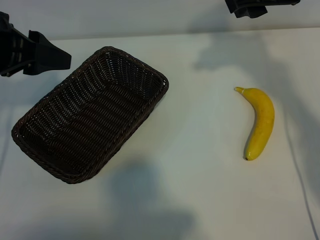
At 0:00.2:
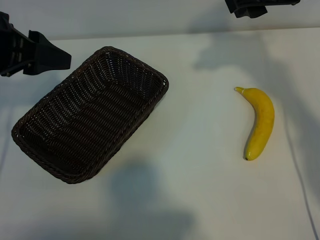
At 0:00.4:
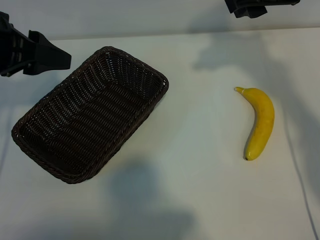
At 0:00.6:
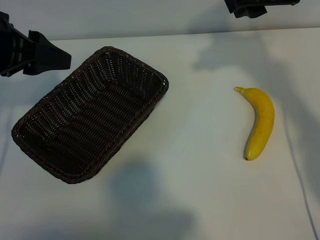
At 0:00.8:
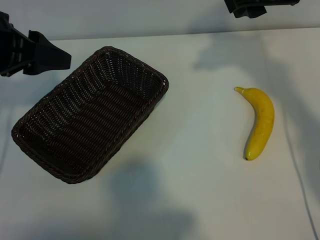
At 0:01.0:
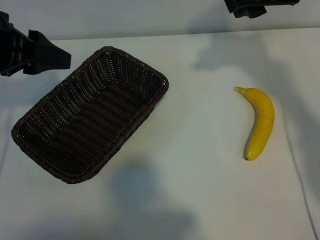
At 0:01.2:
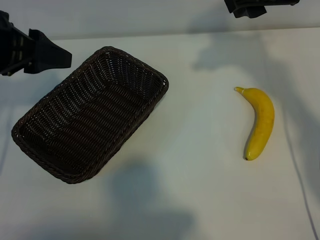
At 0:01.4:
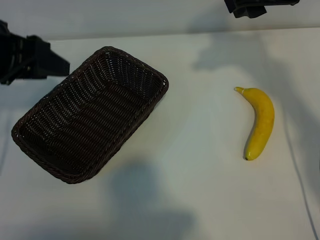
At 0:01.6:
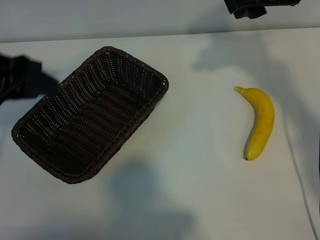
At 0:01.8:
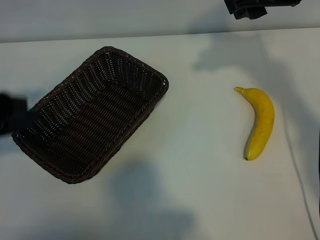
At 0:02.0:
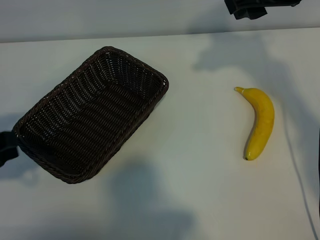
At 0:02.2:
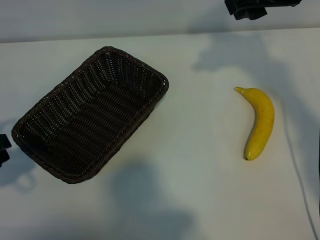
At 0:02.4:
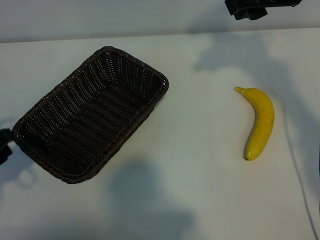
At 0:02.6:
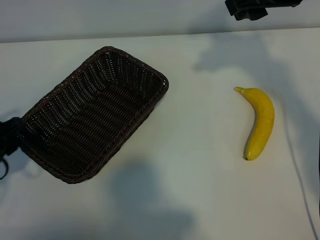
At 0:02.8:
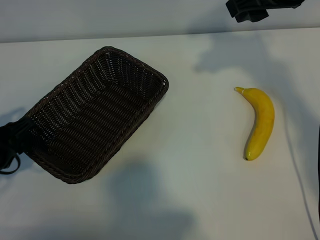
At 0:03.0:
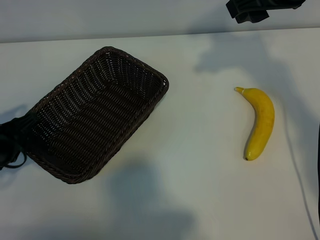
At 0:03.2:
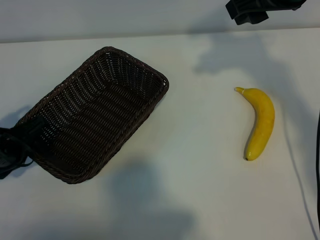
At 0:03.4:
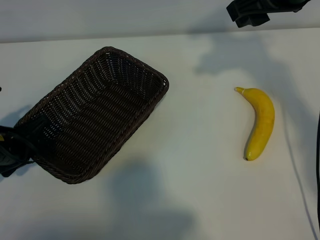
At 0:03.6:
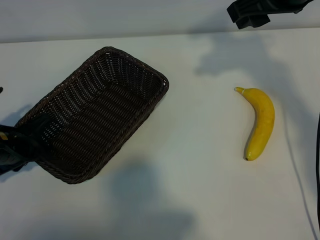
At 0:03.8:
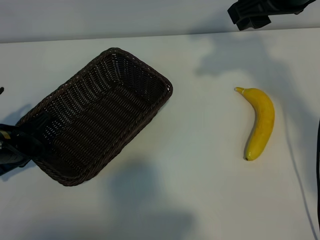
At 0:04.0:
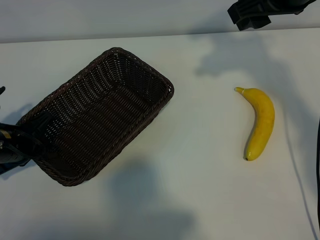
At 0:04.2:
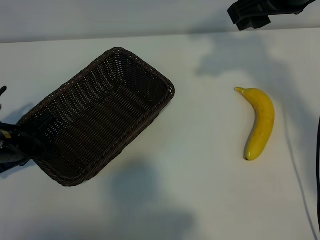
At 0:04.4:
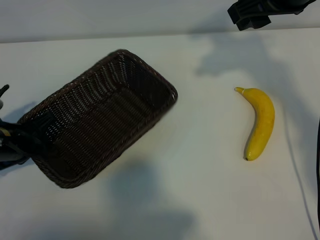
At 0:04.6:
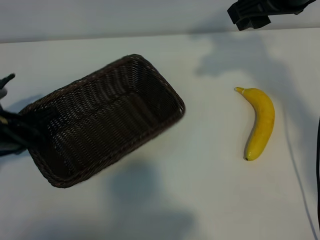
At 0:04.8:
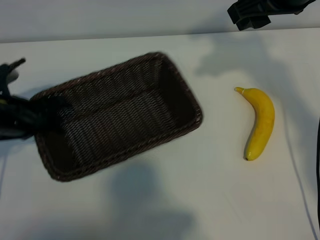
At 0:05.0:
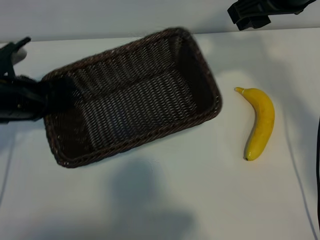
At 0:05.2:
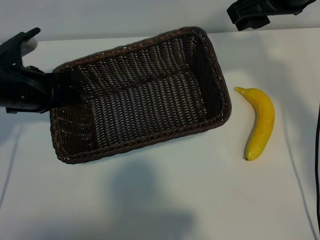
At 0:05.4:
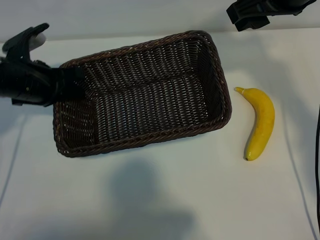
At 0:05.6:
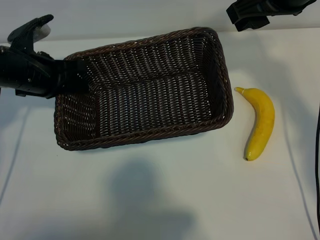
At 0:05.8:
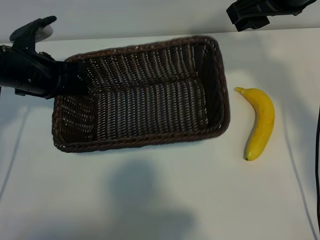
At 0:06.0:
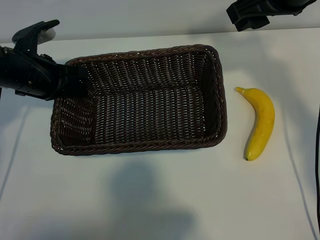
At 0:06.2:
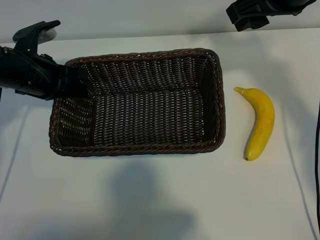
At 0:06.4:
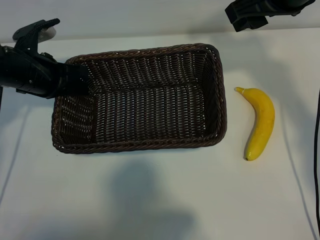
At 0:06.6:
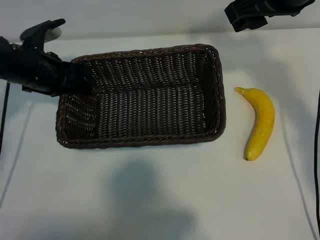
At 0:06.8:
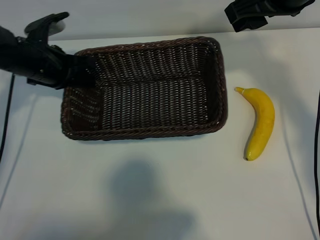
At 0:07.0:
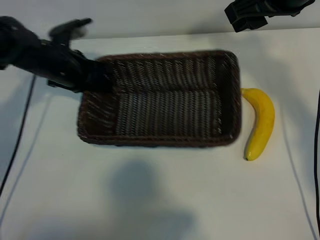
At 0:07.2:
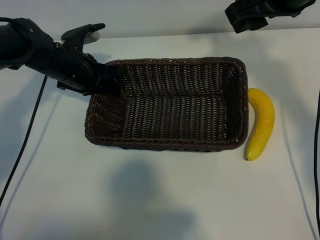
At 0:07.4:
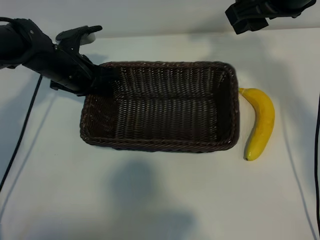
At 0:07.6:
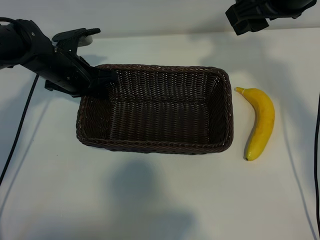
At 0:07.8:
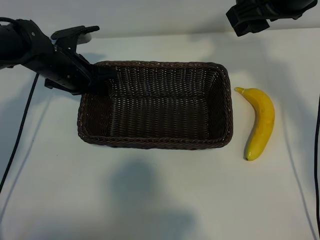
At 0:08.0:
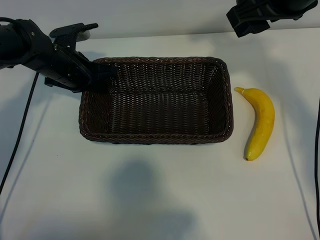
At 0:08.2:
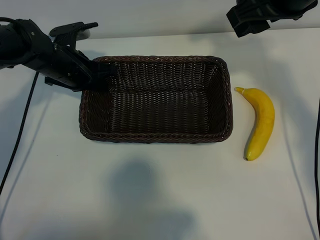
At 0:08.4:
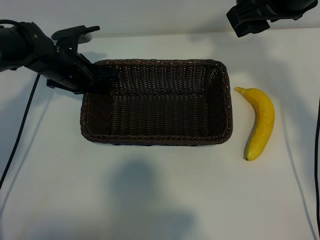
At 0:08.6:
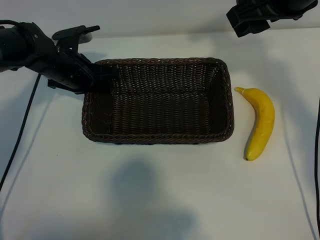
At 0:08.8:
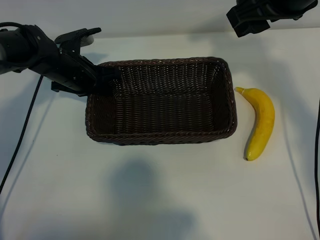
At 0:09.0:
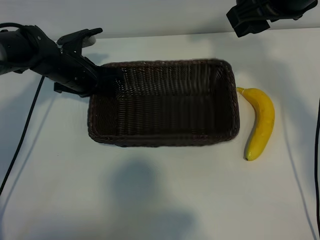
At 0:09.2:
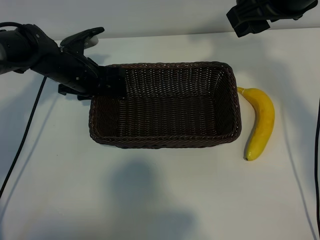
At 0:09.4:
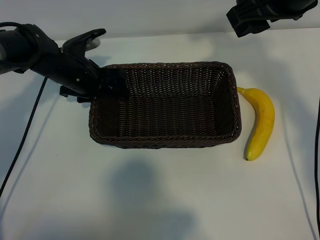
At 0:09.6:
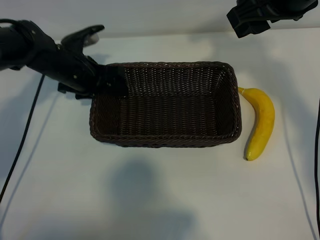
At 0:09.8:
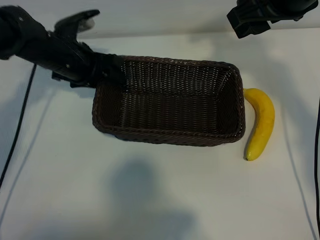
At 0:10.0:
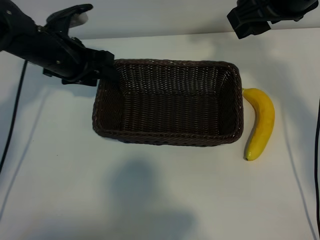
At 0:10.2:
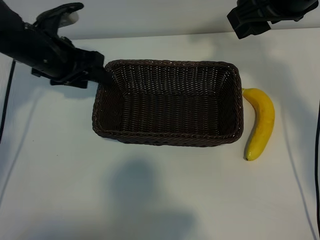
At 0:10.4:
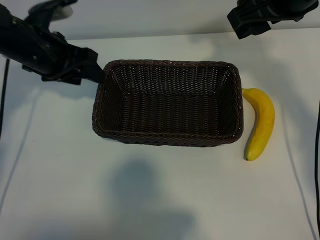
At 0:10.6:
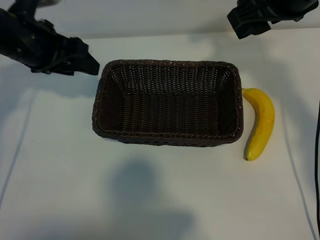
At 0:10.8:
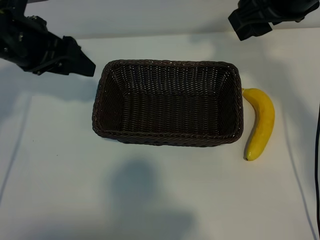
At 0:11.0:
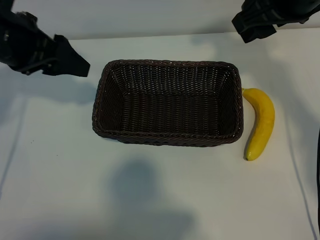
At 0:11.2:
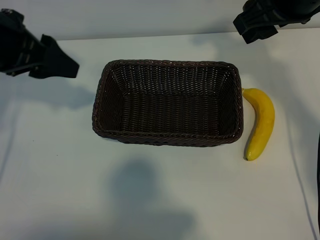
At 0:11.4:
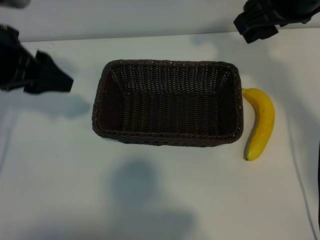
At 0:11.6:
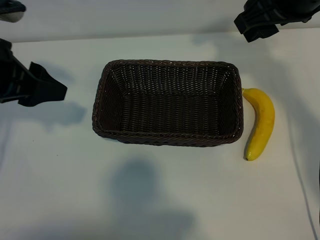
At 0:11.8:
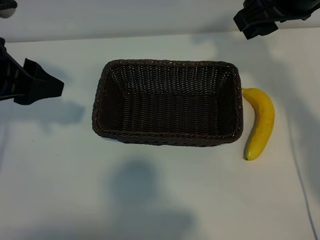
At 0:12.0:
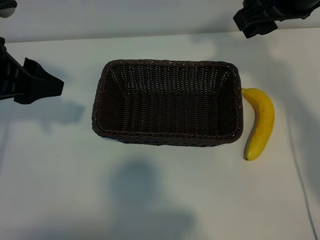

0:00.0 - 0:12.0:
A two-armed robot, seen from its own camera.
Task of the whole recording: pick up the banana and put it into the basket.
Step, 0:00.6 - 0:03.8: Grasp the basket with the left gripper.
Step, 0:04.0 - 0:09.8: Place the basket in the center of the table with the left gripper.

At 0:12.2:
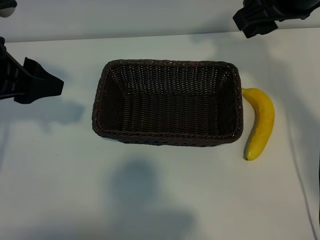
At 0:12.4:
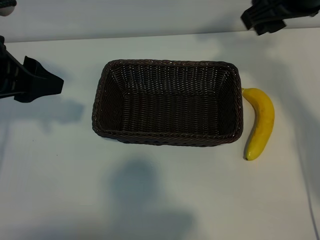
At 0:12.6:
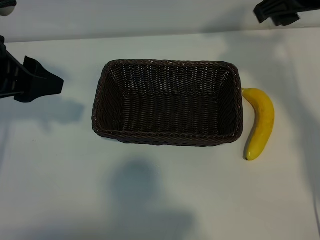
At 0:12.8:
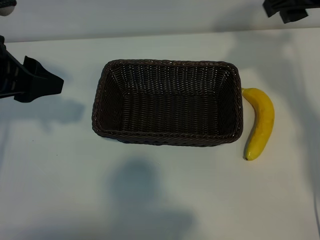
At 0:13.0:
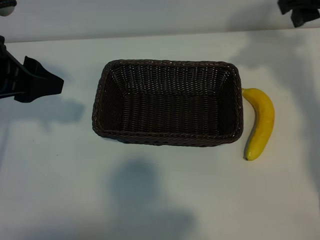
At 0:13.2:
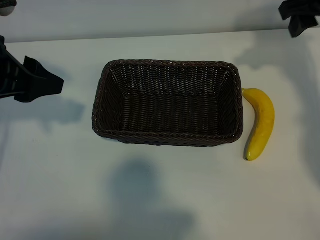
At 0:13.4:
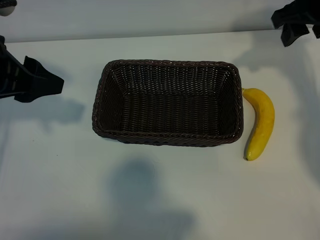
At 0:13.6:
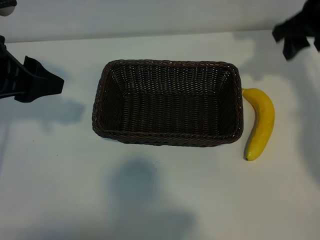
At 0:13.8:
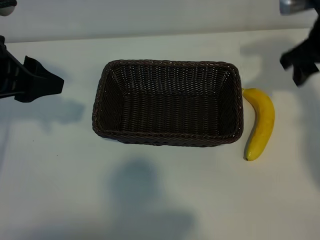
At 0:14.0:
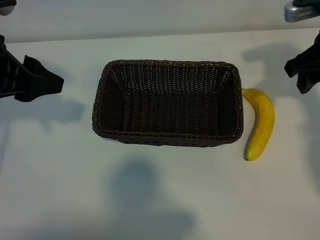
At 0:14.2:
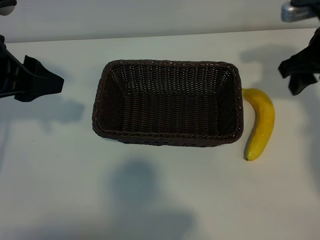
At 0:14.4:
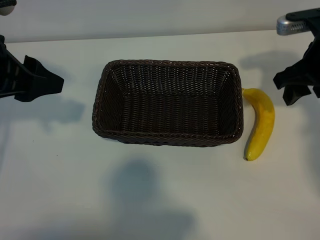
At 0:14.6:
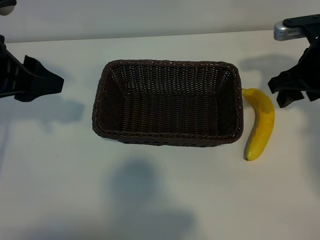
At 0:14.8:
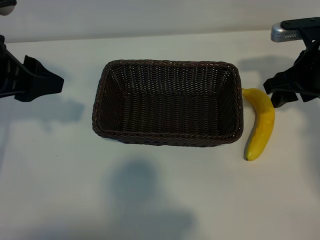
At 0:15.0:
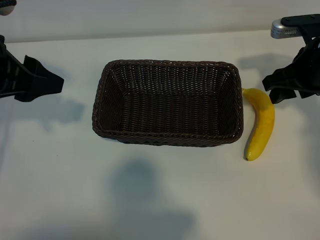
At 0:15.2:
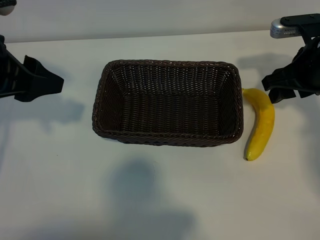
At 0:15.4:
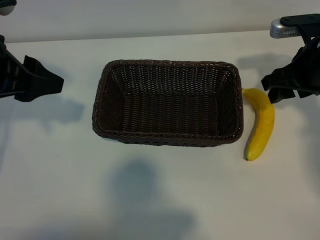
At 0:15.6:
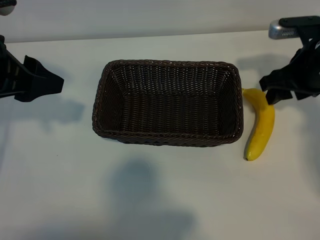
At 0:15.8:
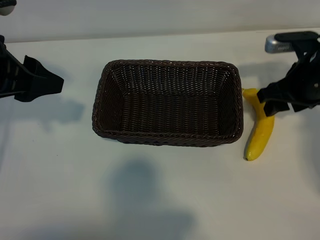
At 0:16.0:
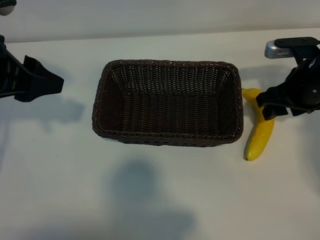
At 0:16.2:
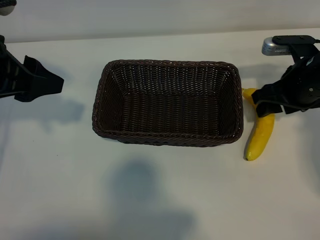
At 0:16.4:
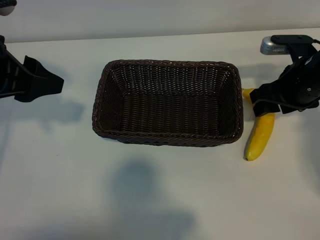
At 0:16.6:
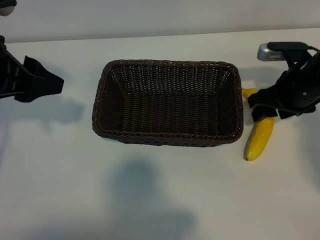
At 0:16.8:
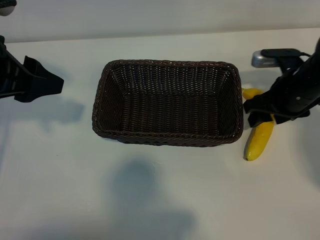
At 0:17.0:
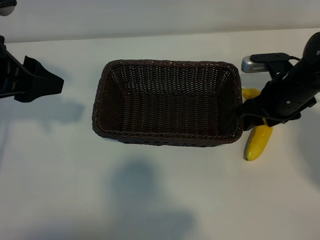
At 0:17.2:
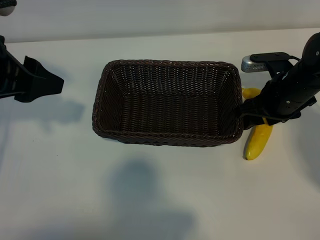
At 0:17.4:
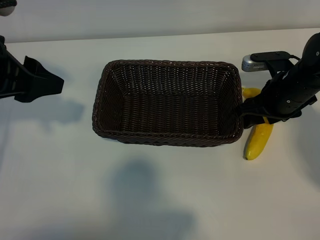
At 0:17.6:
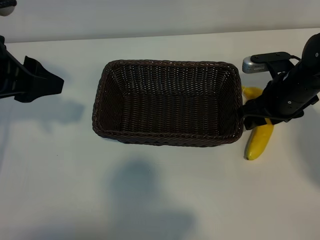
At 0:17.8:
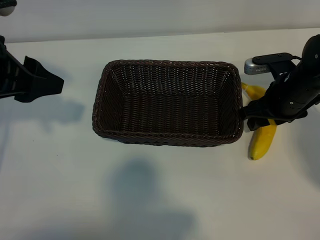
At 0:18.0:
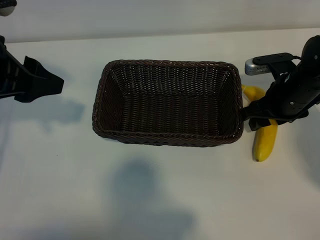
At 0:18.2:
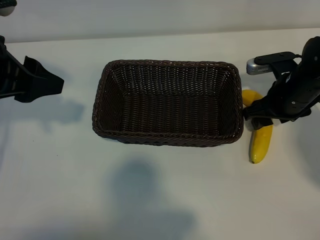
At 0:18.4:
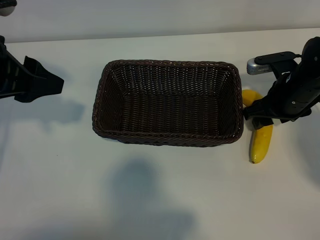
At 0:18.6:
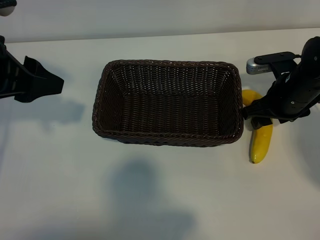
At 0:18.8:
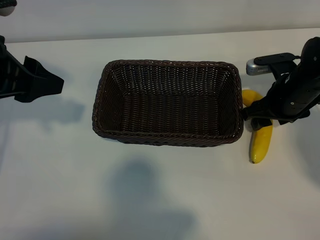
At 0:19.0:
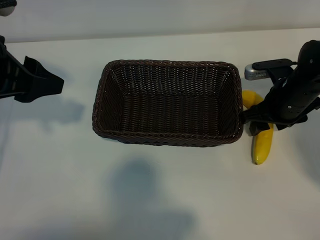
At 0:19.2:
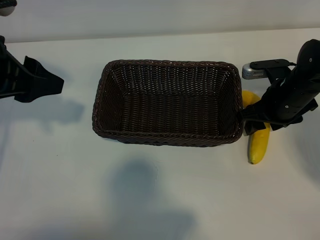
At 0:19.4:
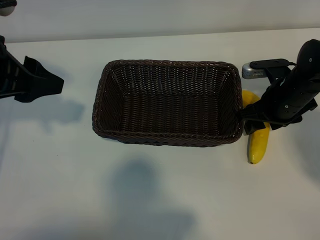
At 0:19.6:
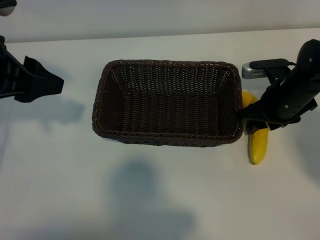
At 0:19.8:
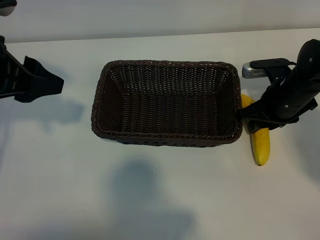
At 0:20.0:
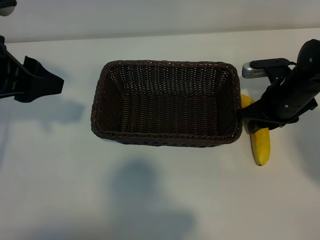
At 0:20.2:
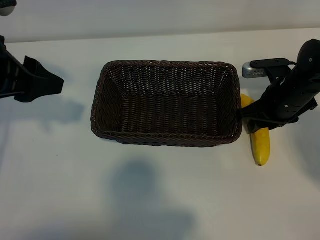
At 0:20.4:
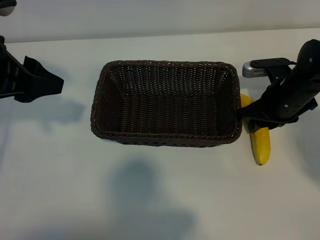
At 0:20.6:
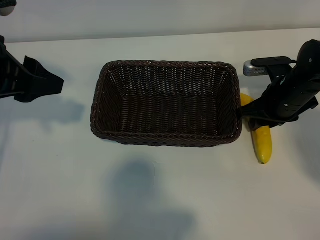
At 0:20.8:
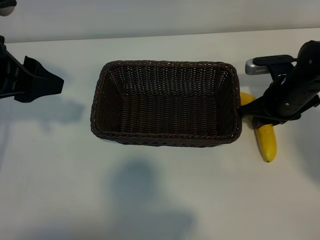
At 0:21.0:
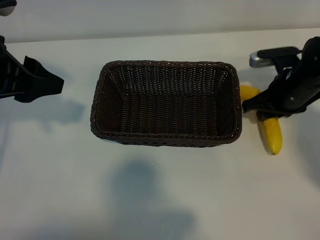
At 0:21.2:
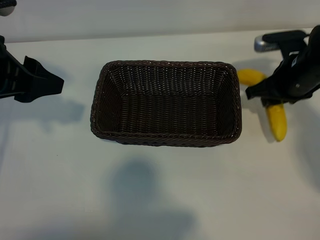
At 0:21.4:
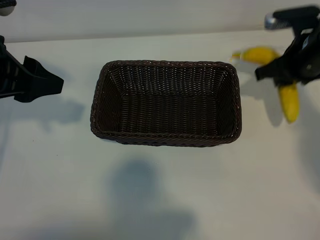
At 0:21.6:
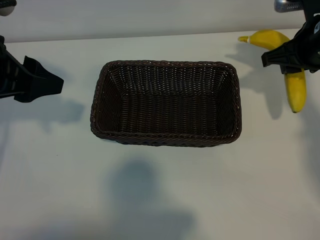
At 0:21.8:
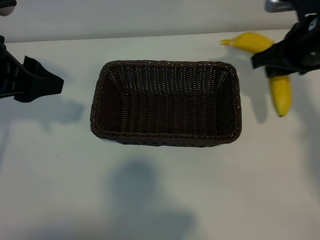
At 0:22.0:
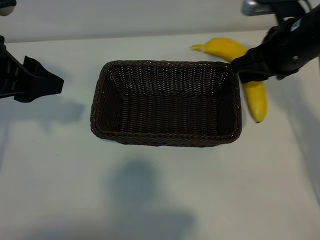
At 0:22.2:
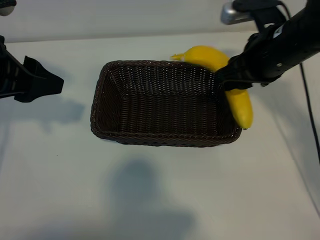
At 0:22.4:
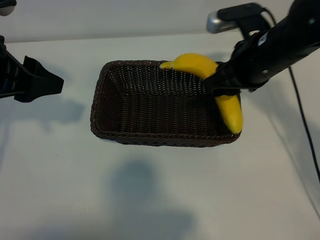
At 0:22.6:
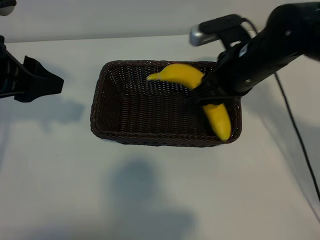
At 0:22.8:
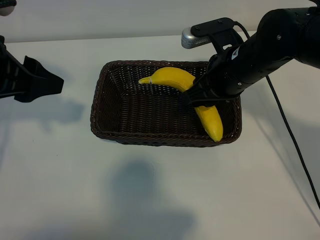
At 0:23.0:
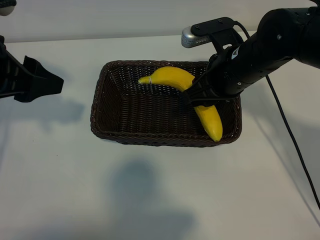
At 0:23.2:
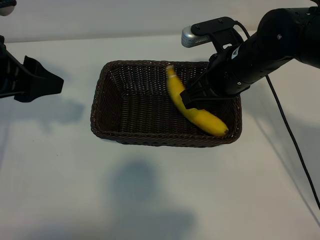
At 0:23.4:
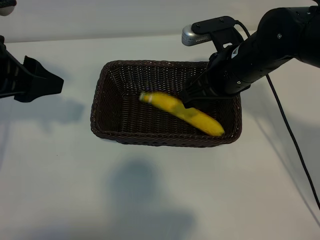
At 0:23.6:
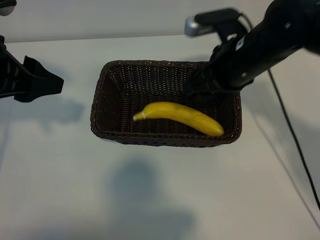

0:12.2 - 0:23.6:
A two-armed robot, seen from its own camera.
Task of the whole recording: pick up the banana and put it into the basket.
Step, 0:12.2 - 0:20.4: Grasp the banana with right gripper.
Step, 0:20.6 - 0:23.4: Place the banana in the basket with right gripper.
